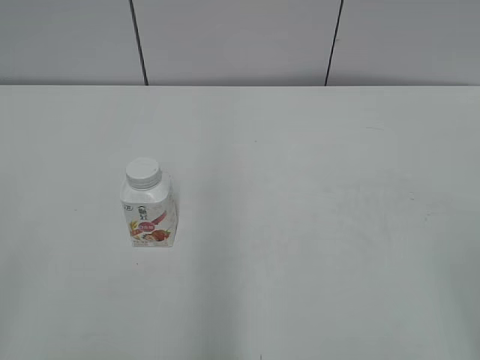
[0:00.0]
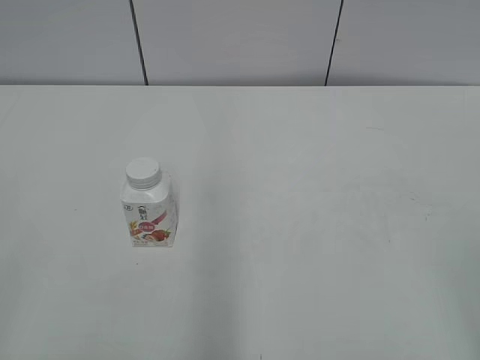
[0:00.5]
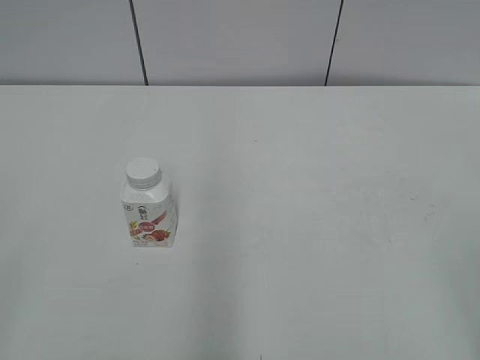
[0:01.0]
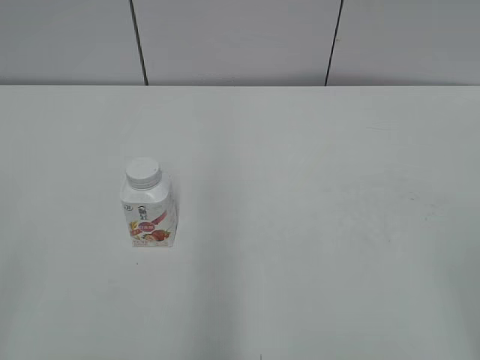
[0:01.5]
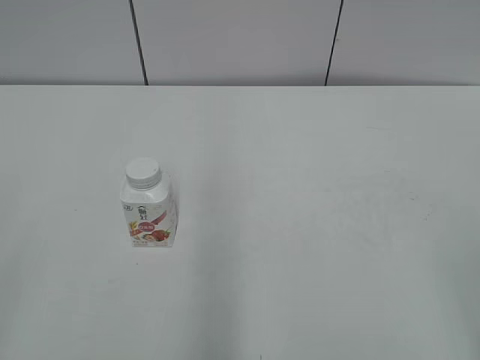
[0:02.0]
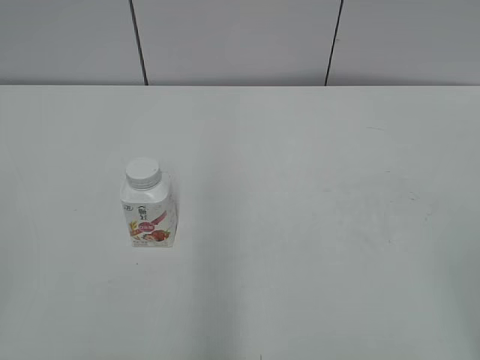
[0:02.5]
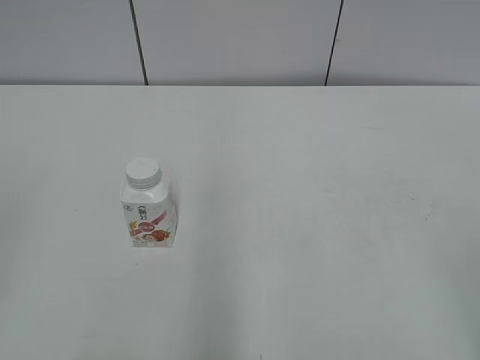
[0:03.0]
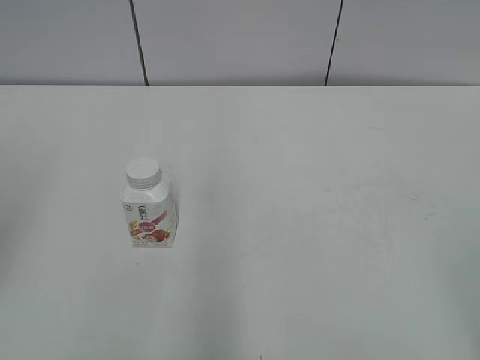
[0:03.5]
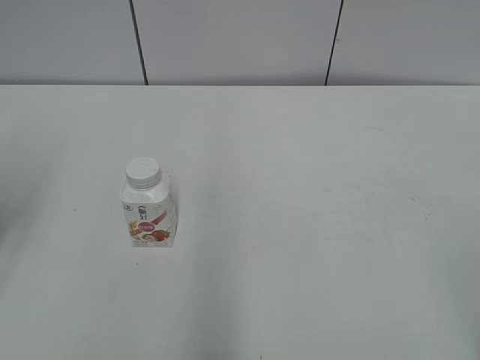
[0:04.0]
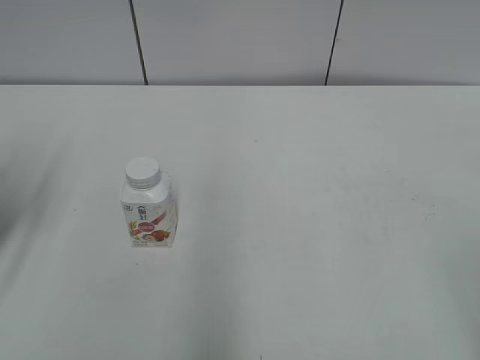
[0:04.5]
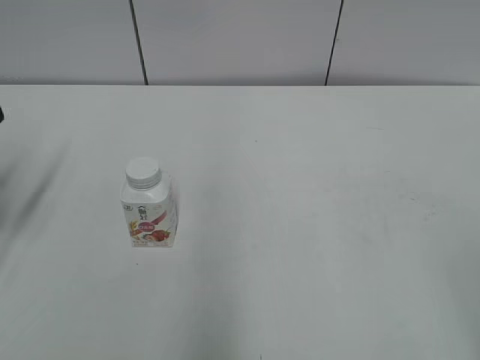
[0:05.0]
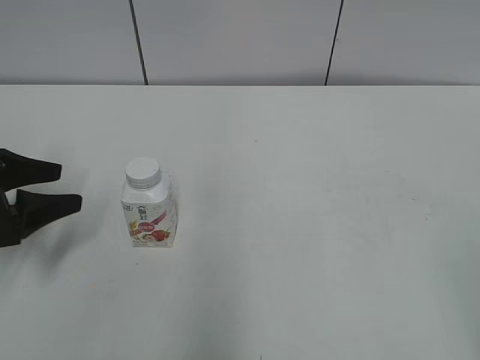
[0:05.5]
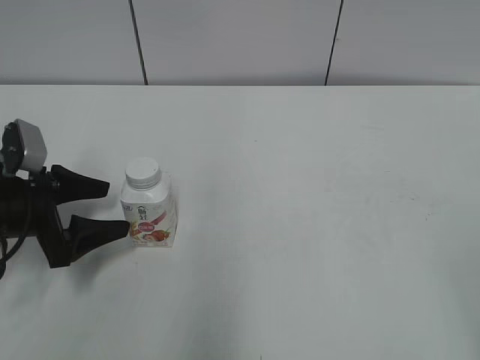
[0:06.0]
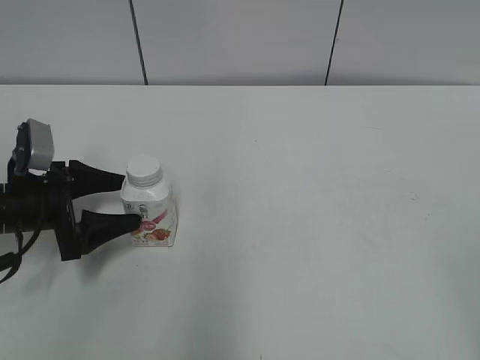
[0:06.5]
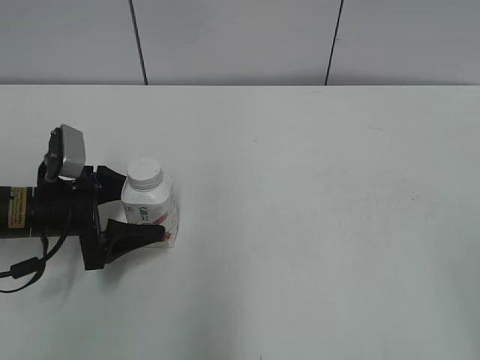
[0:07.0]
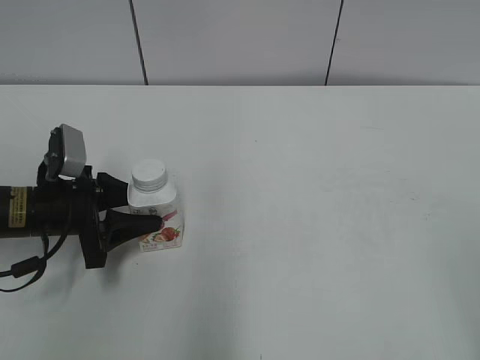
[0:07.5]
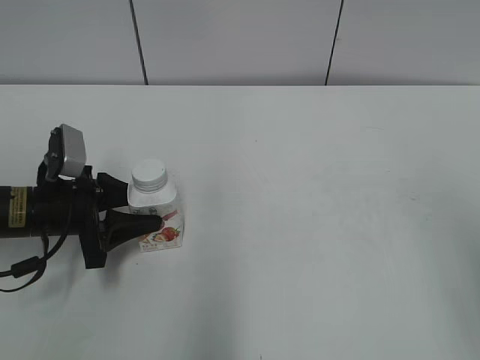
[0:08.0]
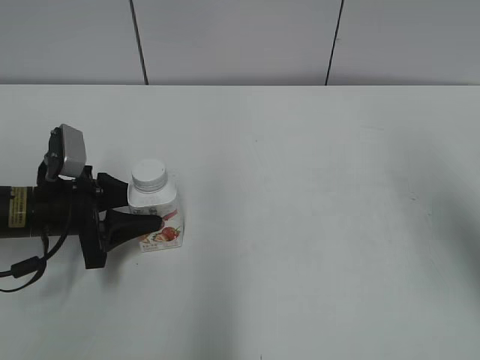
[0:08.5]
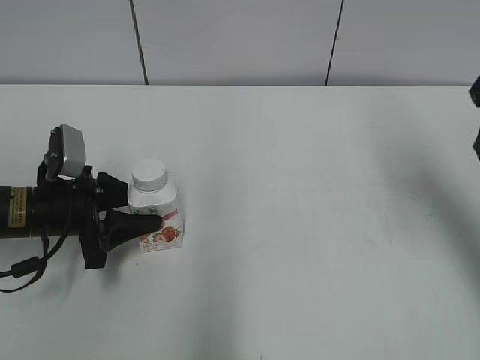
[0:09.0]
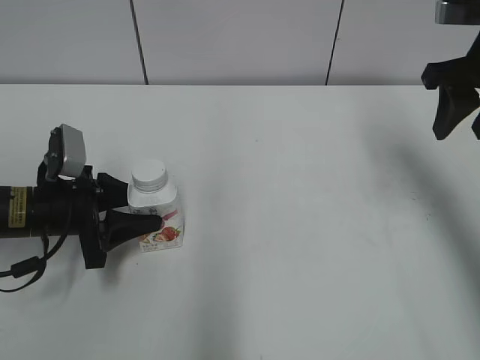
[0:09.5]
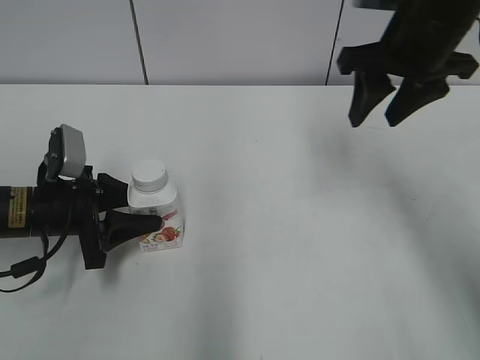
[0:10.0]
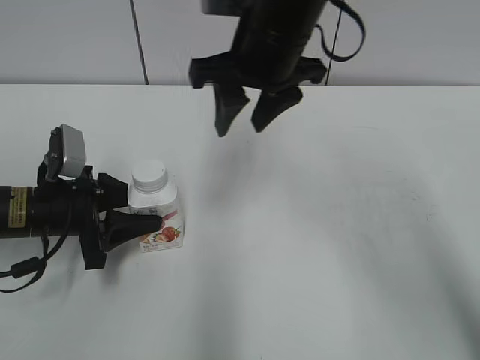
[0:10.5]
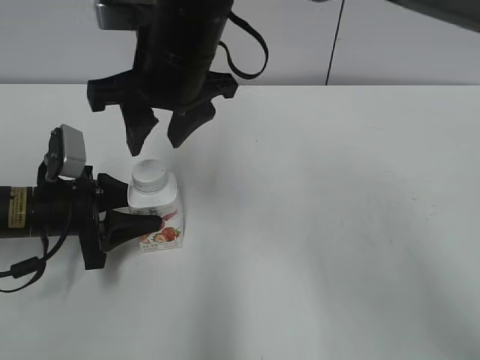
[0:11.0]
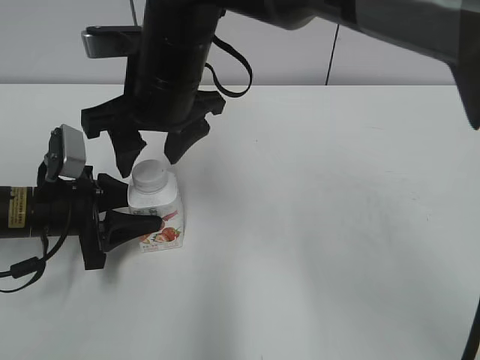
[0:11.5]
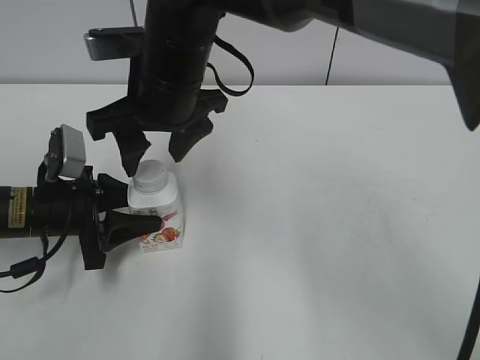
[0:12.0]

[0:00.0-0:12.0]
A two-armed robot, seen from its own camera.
Step, 0:00.0 to 0:07.5: Grab the Yili Changqing with the left hand.
0:02.0 to 0:04.0: The left gripper shifts approximately 20 cm forward.
0:04.0 to 0:06.0: The left gripper goes about 15 cm downward and forward, and opens up.
0:06.0 to 0:08.0: The left gripper closes up.
0:08.0 to 0:10.0: The right gripper shifts roughly 30 cm forward and to the left, and closes its fingers.
0:10.0 to 0:12.0: The right gripper shifts some 25 cm to the left, and opens its fingers.

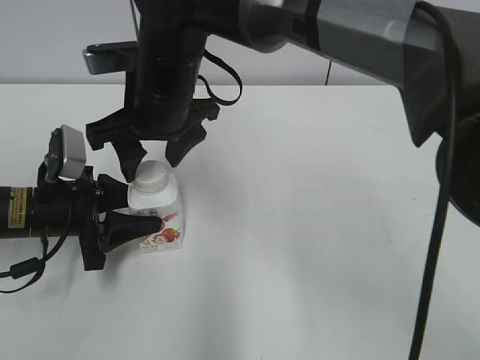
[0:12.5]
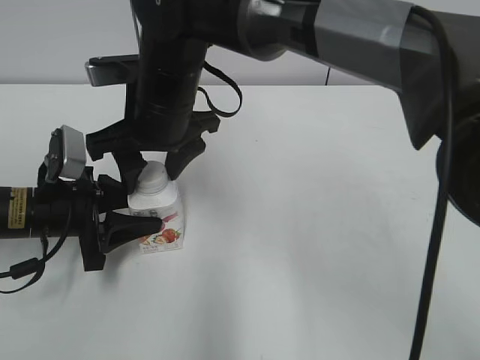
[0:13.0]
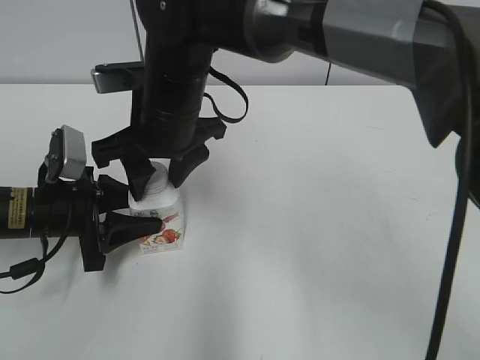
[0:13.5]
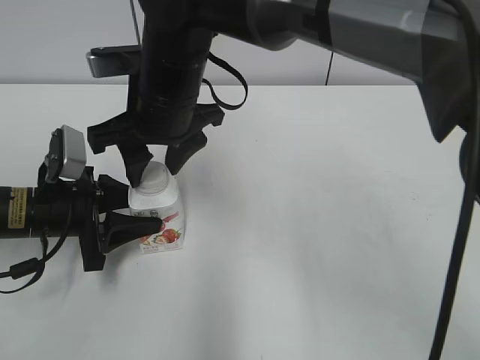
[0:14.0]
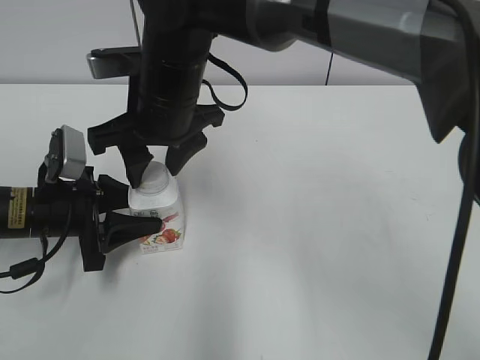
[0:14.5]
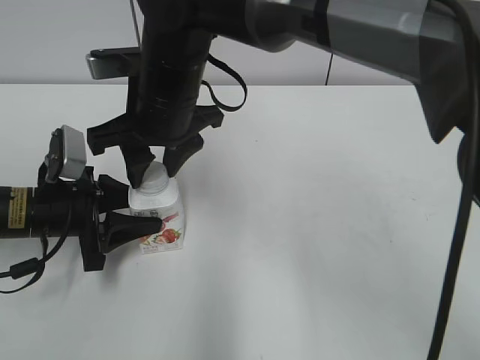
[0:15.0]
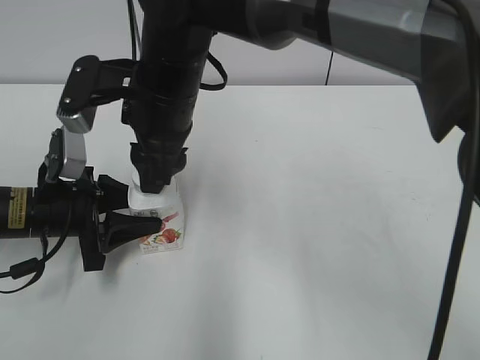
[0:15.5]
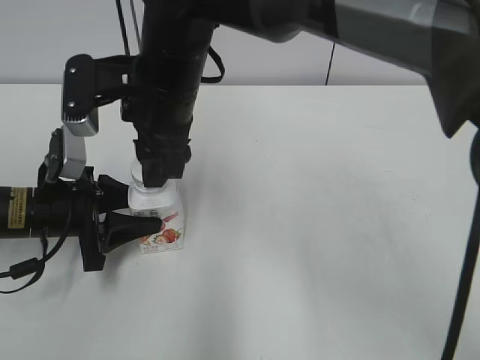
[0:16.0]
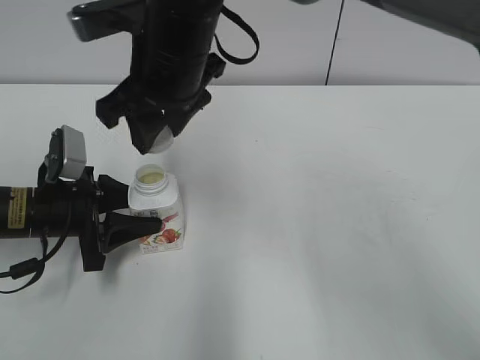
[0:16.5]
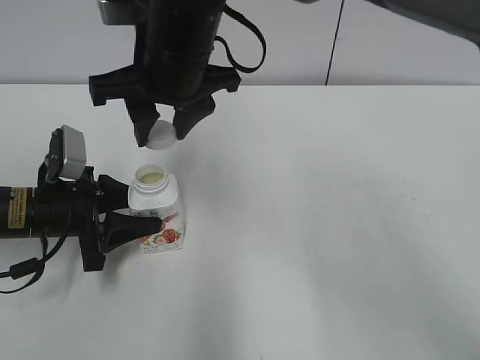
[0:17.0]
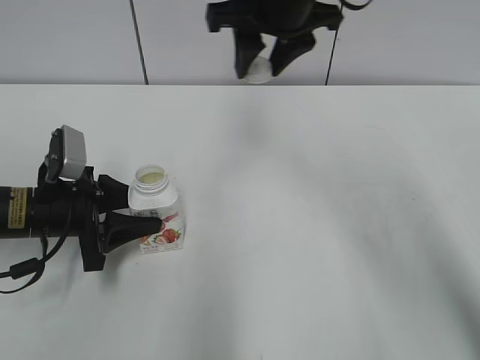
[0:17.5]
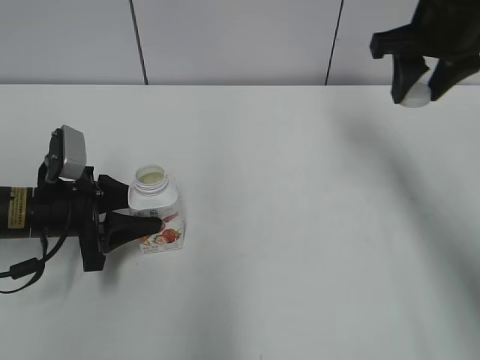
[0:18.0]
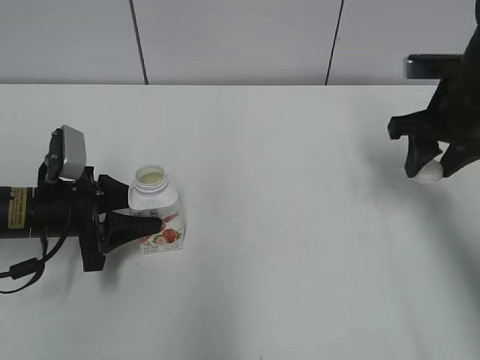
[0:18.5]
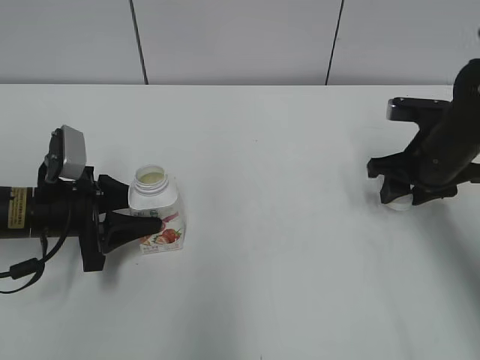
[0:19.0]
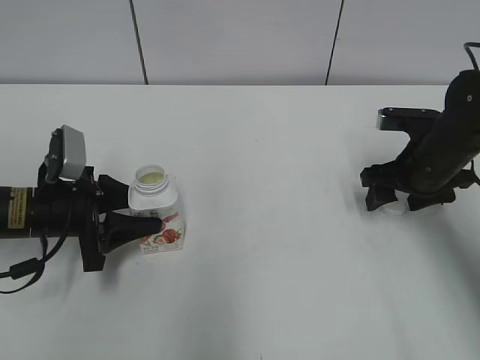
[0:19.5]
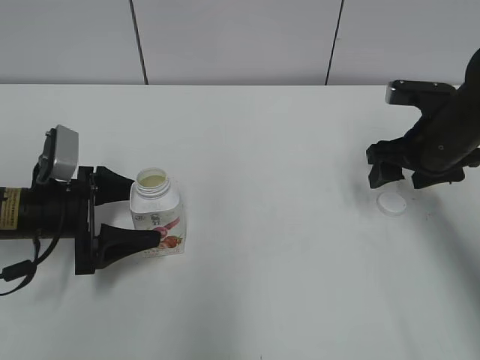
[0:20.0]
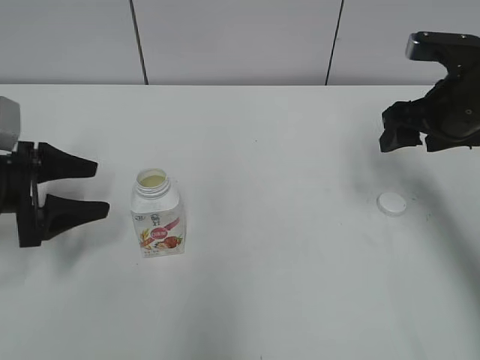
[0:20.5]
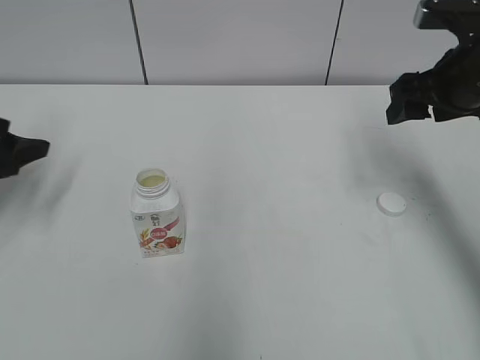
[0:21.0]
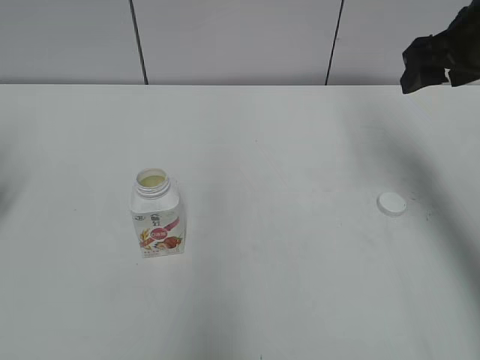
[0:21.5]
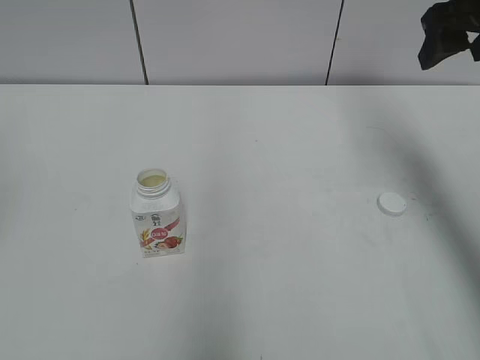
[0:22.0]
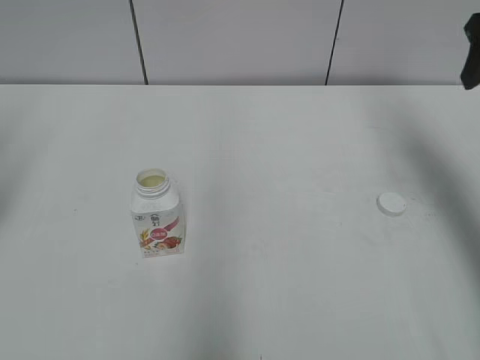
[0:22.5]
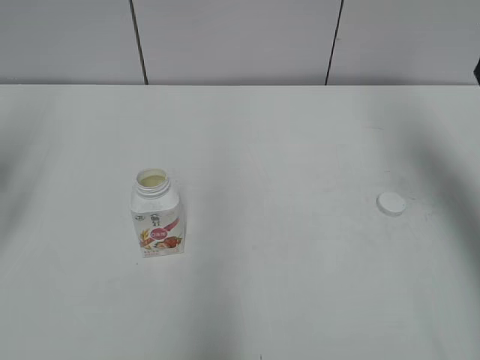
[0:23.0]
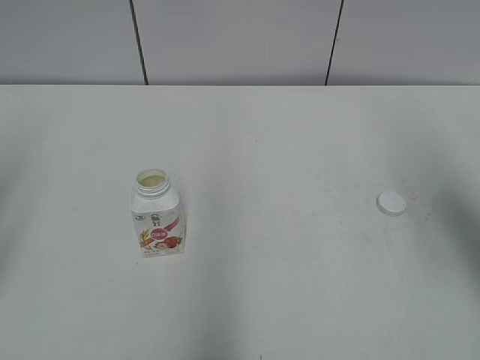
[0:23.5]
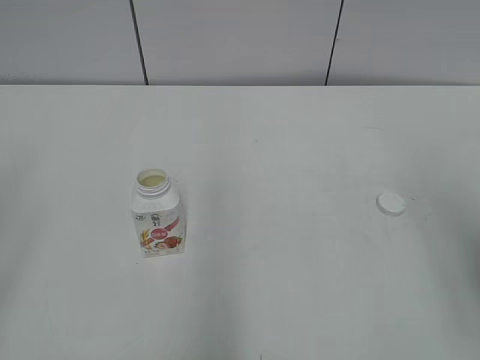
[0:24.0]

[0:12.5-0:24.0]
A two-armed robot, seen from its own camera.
Step, 0:16.5 to 0:19.0: Place the bottle cap on the right.
Step, 0:19.5 to 0:20.0: Place the Yili Changqing with the left hand.
0:12.5 to 0:14.5: The right gripper closes its fingers.
0:16.5 to 0:18.5: The right gripper goes about 30 cm to the right.
0:18.5 to 0:20.0: The left gripper opens; the right gripper opens its fingers.
0:20.0 to 0:22.0: The left gripper shifts roughly 20 cm to the left and upward; the right gripper heads upward, covering about 15 cm.
0:22.0 to 0:24.0: The right gripper is displaced backward by some 25 cm.

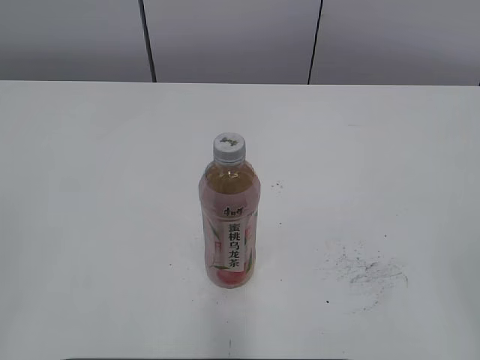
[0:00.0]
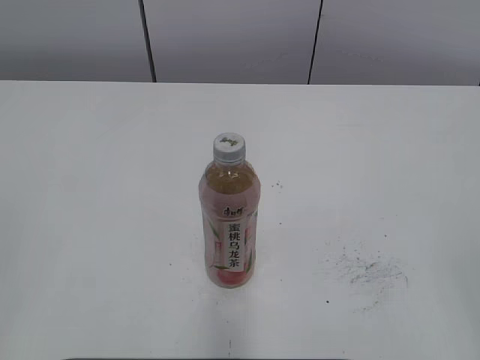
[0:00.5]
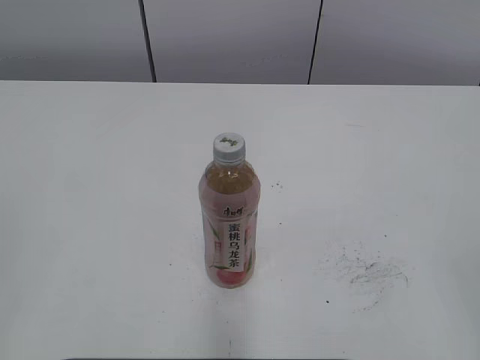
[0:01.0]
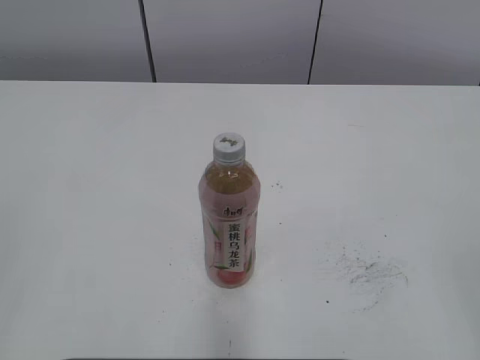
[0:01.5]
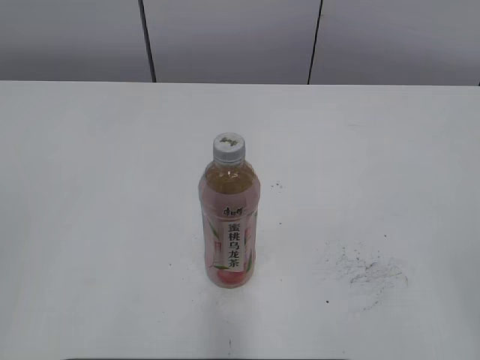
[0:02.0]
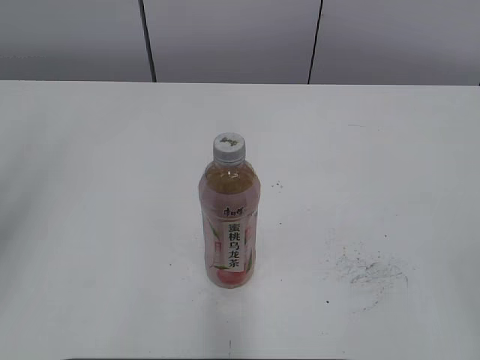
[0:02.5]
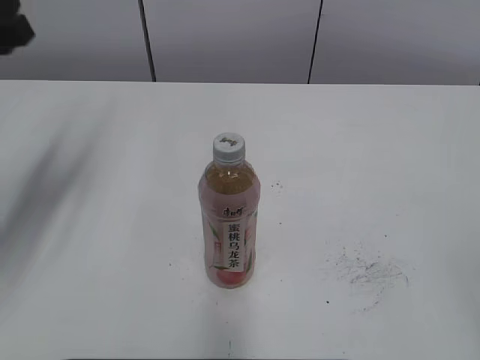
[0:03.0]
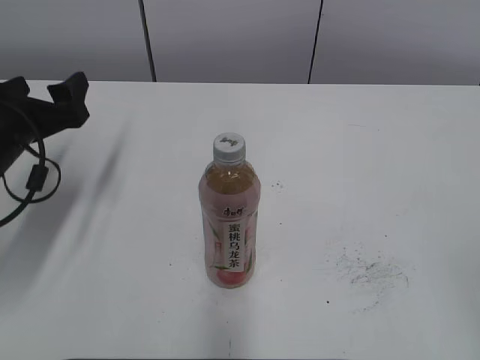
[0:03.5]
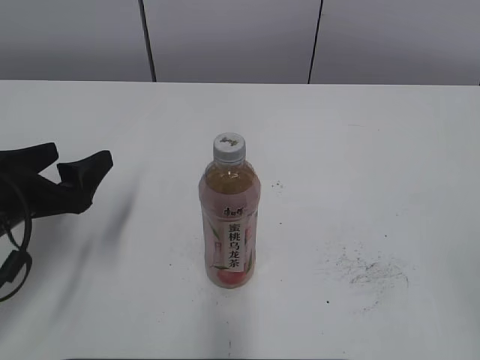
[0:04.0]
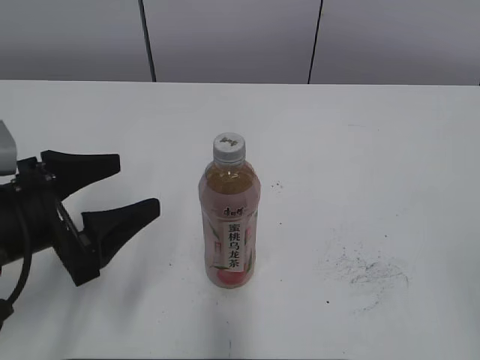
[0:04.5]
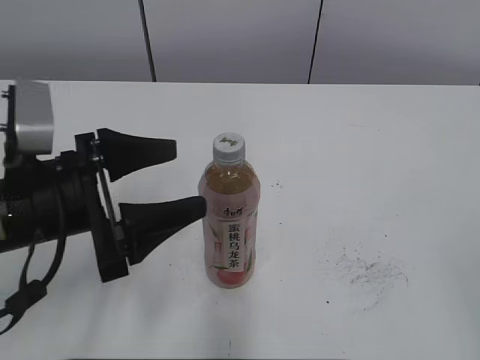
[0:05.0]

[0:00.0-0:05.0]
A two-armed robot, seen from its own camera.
0:02.5 to 0:05.0: The left gripper moves downward, to the right and forward, about 25 cm, and opens its fingers.
